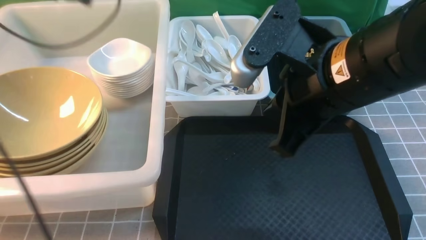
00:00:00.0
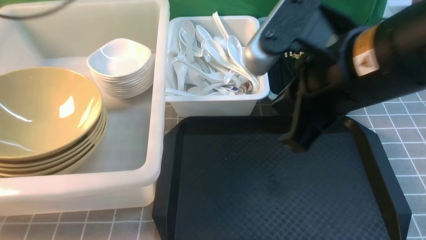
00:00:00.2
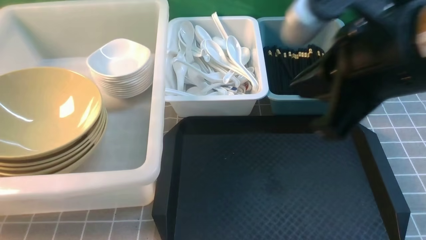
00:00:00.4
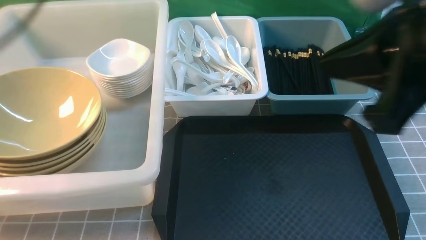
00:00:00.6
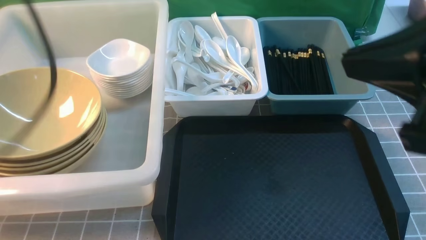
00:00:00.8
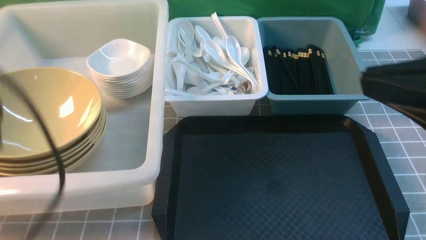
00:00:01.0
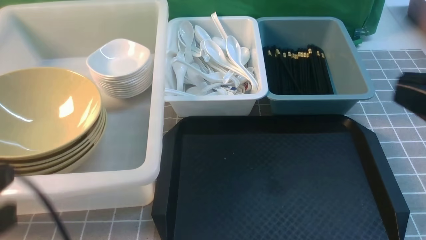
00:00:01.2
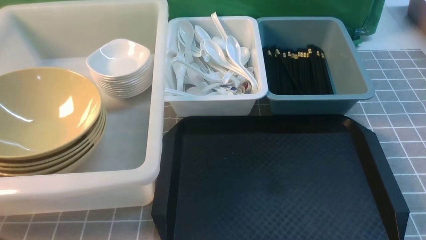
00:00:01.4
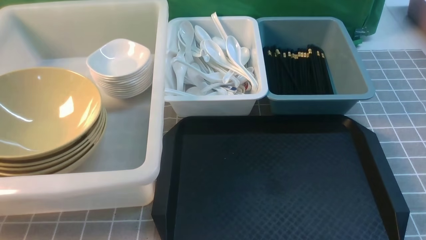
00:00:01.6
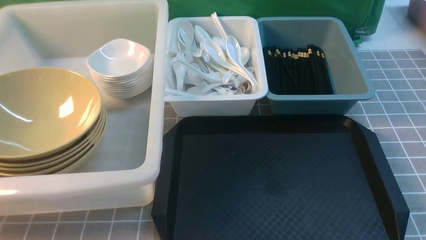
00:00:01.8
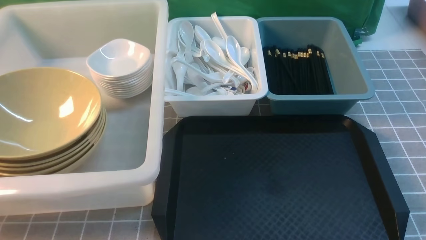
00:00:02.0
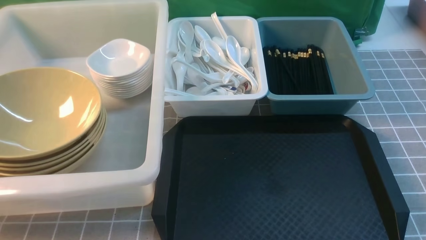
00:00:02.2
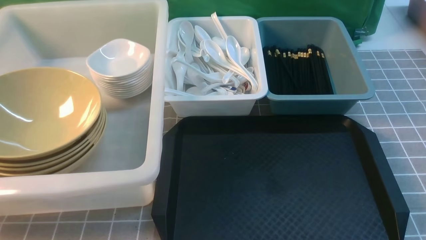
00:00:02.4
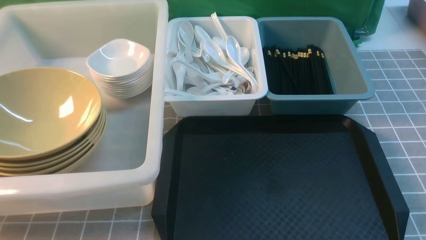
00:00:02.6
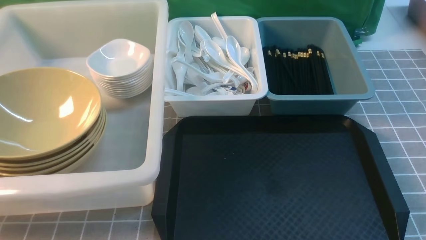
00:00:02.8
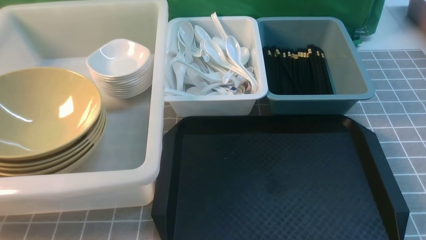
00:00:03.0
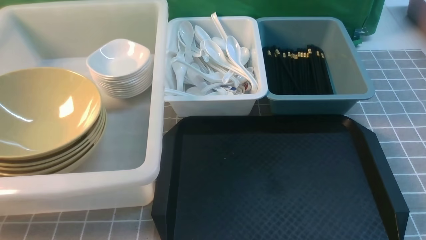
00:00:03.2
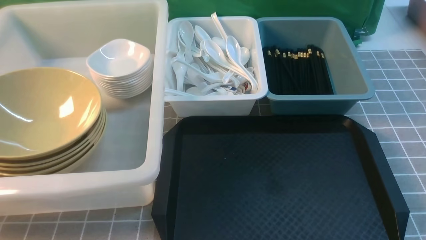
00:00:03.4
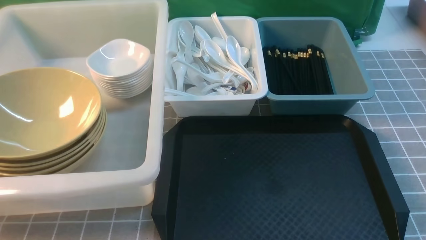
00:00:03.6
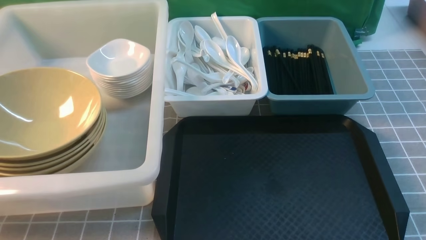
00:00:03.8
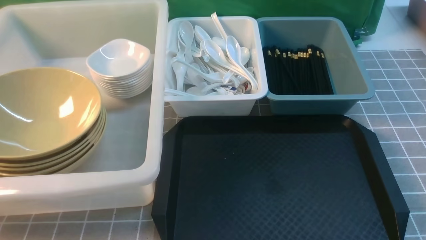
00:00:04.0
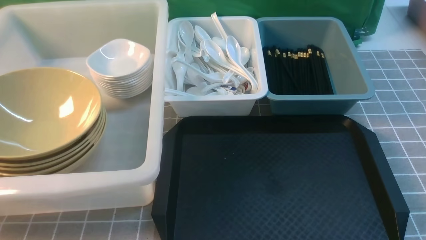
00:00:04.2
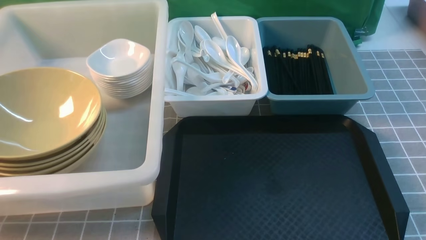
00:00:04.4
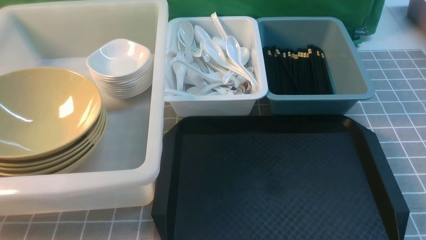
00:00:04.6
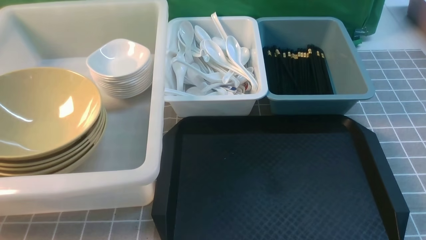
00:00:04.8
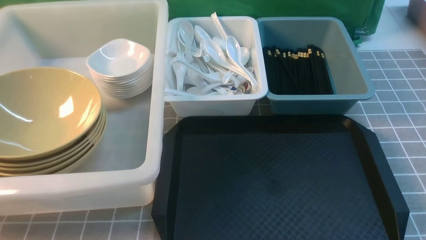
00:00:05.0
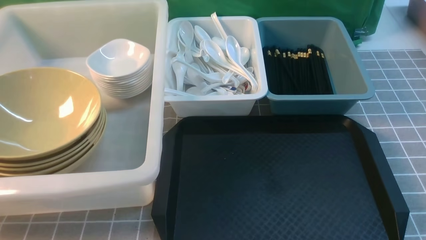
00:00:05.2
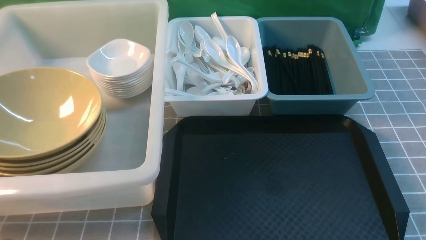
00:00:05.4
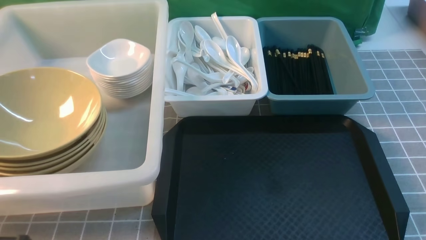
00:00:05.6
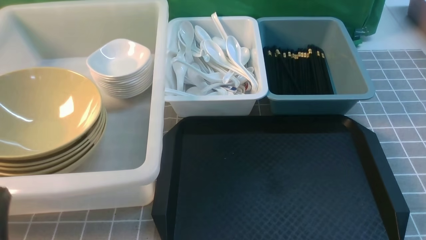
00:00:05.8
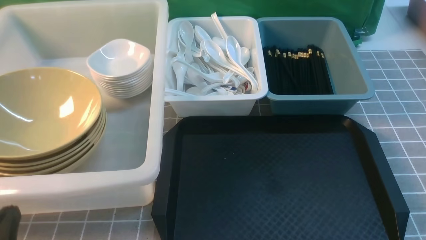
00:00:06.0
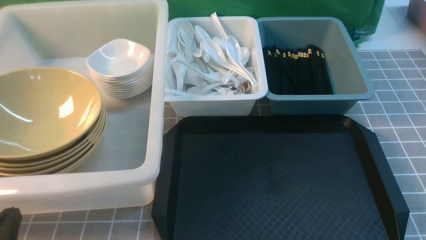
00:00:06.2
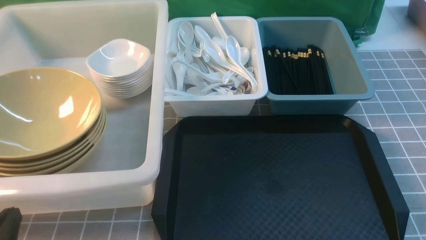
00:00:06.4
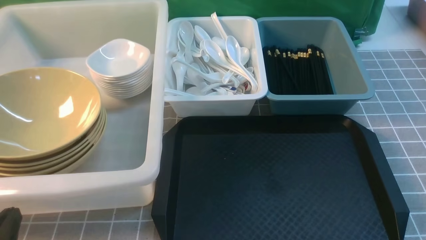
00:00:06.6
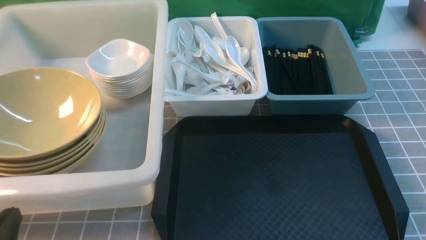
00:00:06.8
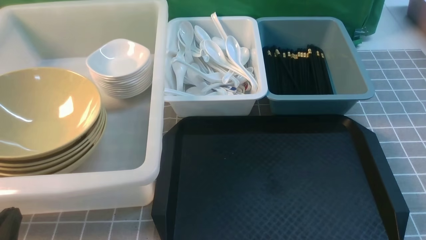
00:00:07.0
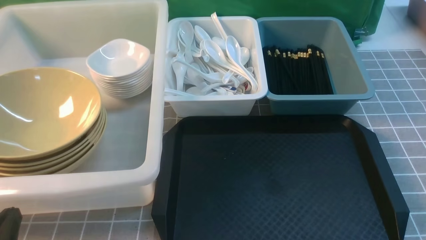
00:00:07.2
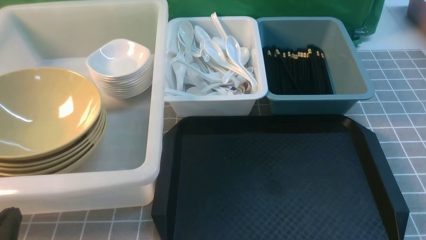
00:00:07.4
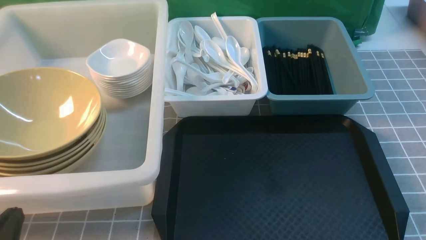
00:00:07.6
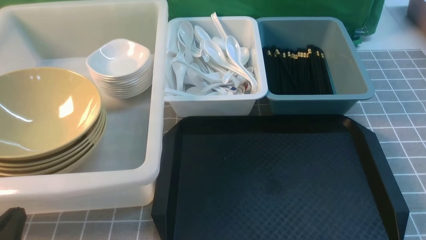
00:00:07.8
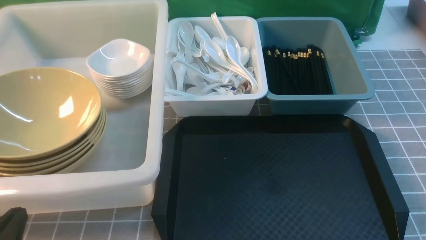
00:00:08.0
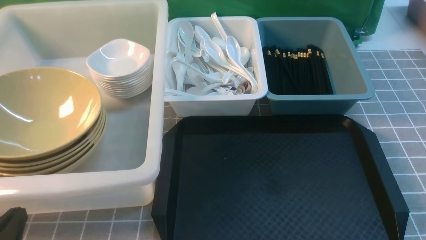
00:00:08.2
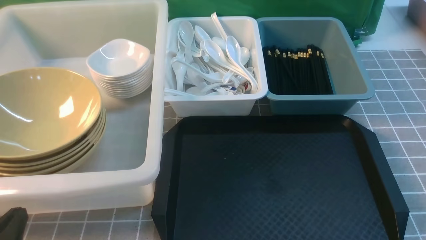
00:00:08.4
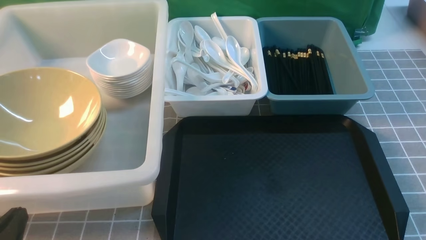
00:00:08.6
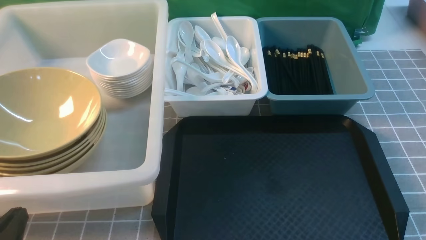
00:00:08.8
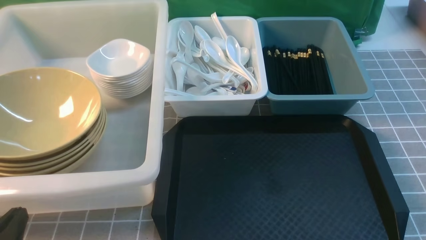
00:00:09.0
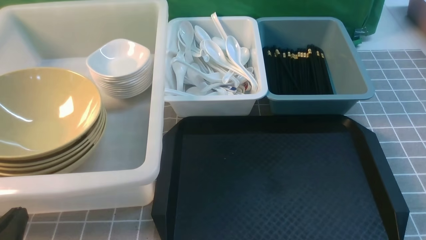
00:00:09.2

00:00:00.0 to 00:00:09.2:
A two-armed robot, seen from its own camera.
Task of the whole recording: on grey table put chopsticks spoon bowls plates into blue grey white boxes.
00:00:00.0 to 00:00:01.6: The right gripper moves backward and to the right, about 20 cm, while the left gripper moves backward, about 40 cm, and closes up.
00:00:06.2 to 00:00:09.2: Both grippers stay about where they are.
